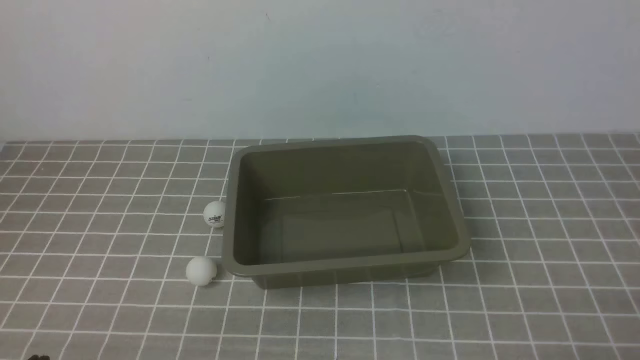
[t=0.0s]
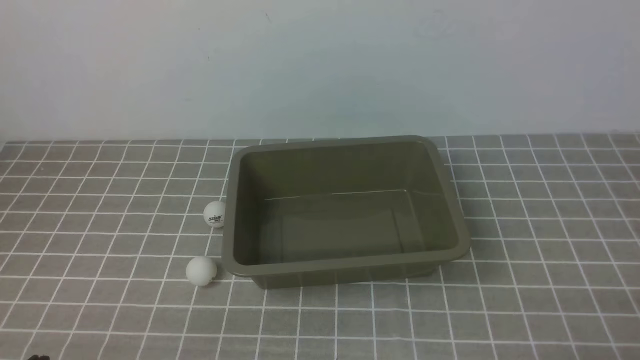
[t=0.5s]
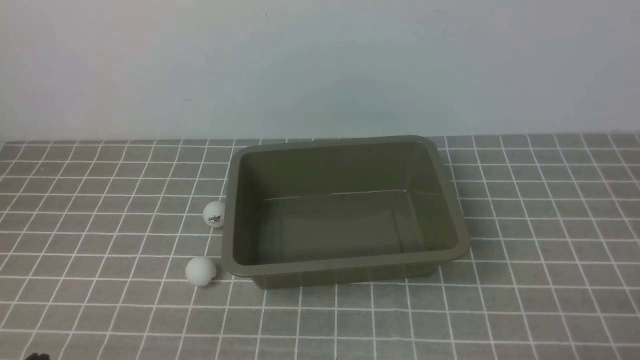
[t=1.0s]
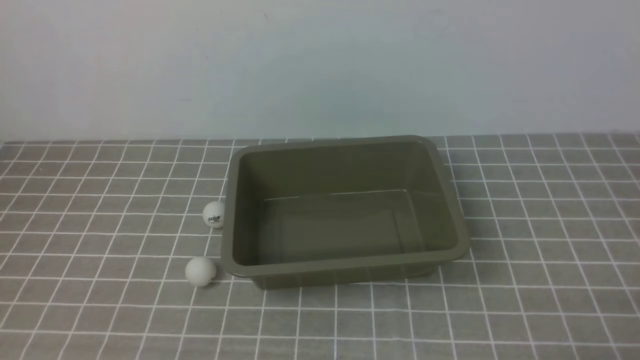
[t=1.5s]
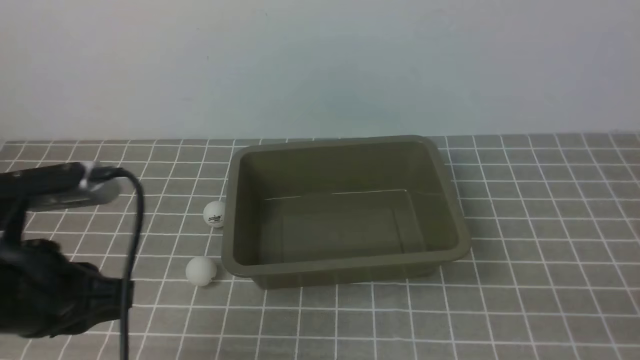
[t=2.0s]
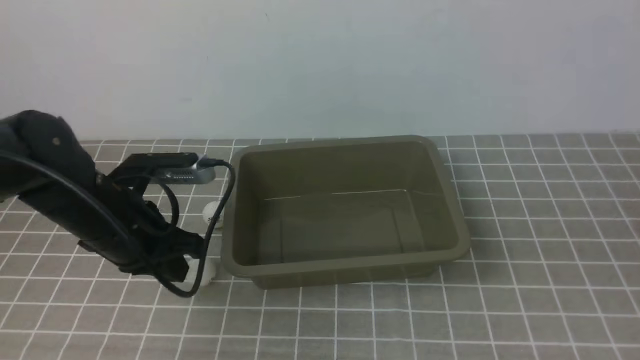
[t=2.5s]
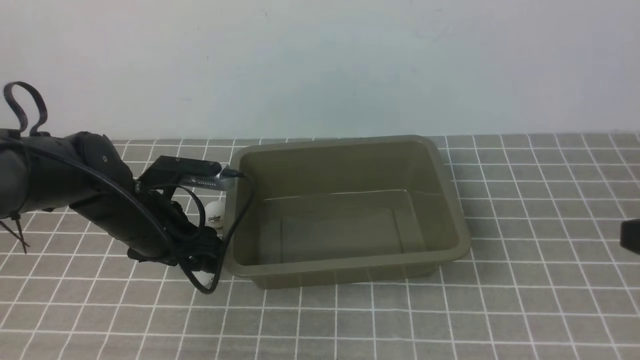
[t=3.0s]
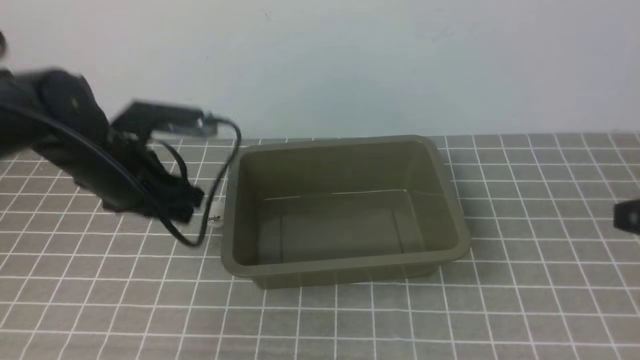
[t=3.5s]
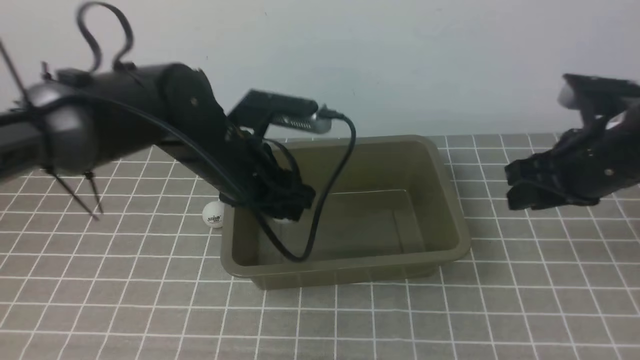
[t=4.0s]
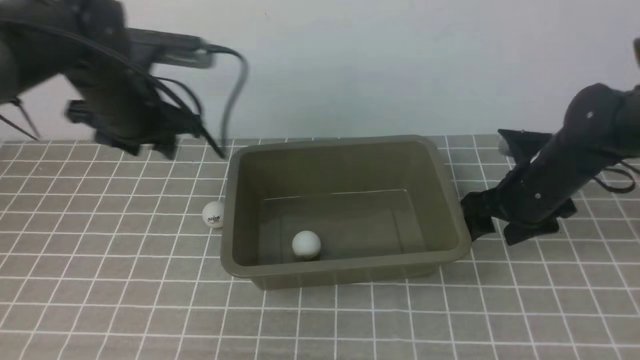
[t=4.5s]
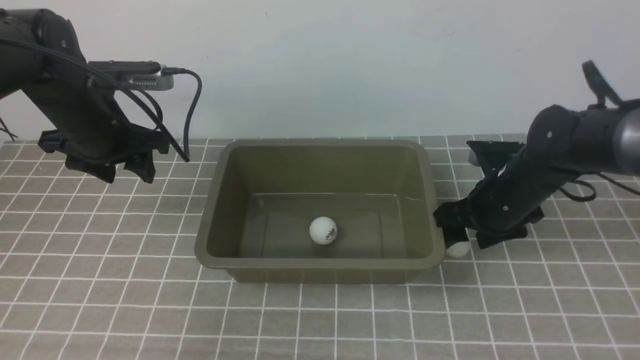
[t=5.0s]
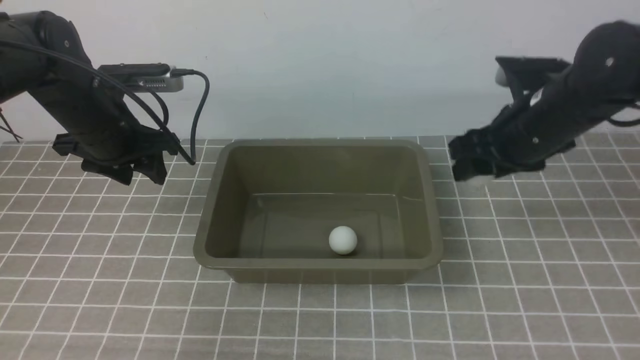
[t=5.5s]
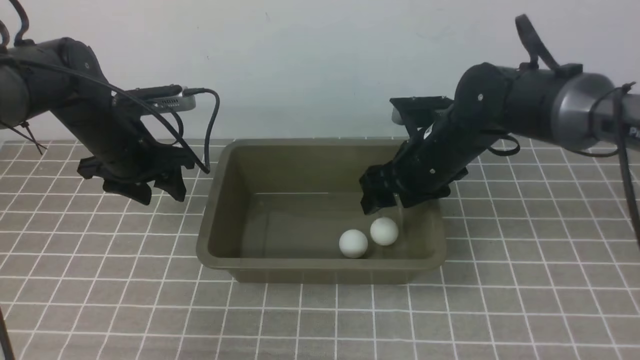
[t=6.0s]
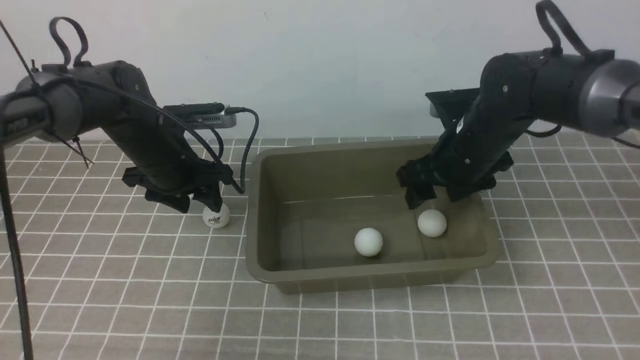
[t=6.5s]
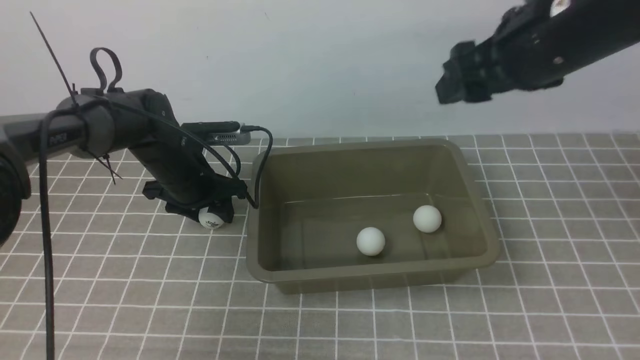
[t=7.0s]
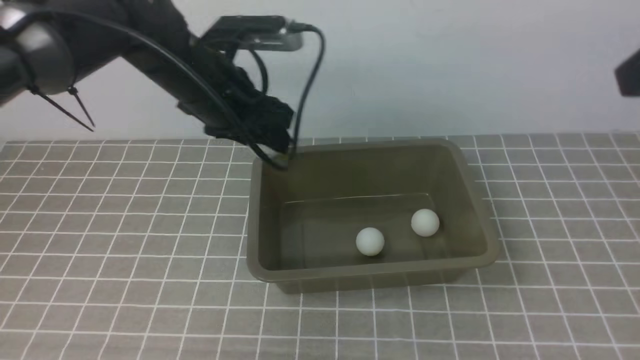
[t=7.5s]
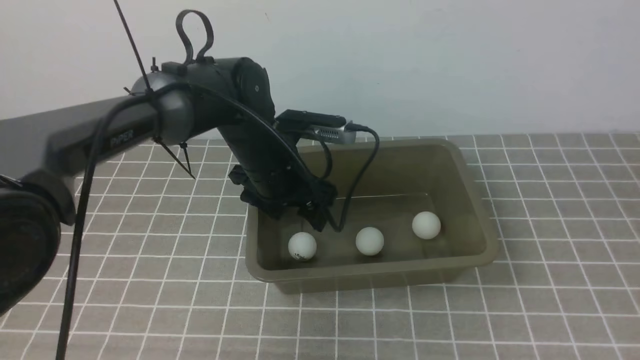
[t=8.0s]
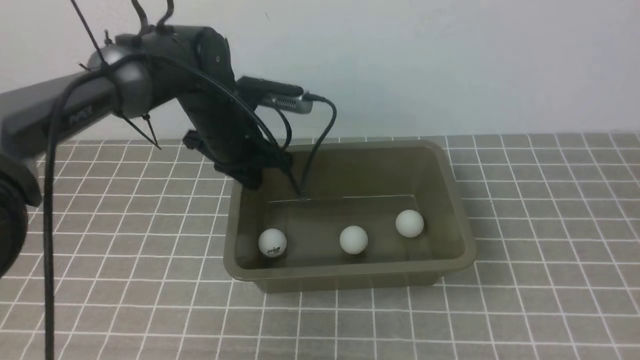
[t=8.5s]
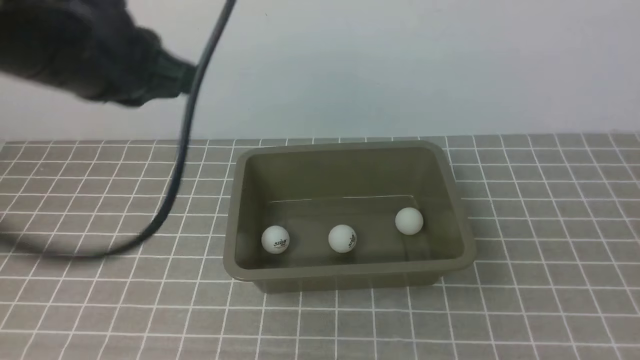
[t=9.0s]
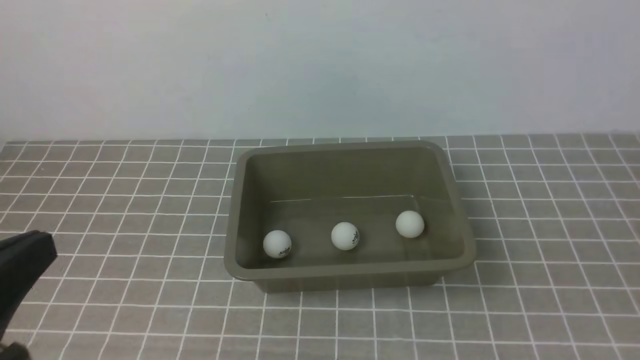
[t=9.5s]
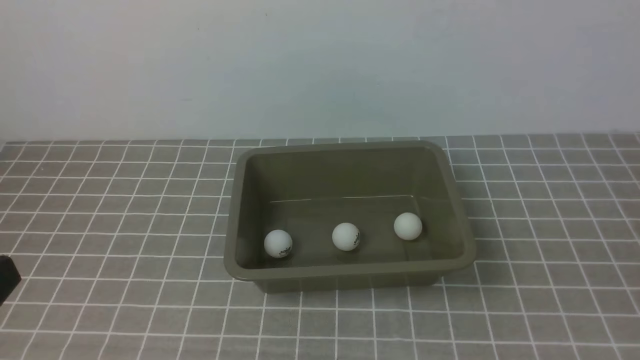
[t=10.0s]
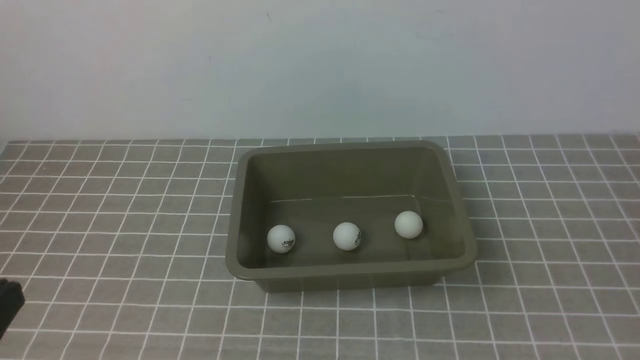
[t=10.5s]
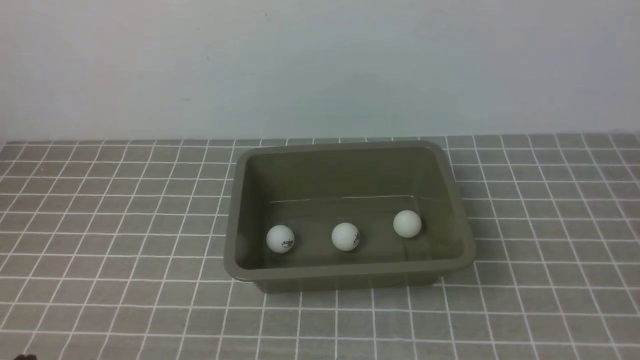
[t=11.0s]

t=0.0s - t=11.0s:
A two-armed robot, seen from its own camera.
Step, t=0.0s - t=3.5s: use the left arm to clamp the table tennis ball closest to it.
Step, t=4.5s - t=5.0s: use the right arm to clamp the table tennis ball closest to it.
Step, t=5.5s - t=6.0s: use the right arm to put the table tennis ball into the box.
Step, t=6.5s - t=7.0s: use the left arm to clamp the table tennis ball closest to it.
Step, t=7.5s - t=8.0s: use the left arm to put the table tennis ball into the box.
t=0.0s - t=2.0s: The left gripper travels forward and upward by approximately 15 cm.
t=2.0s - t=3.5s: The left gripper heads forward, covering roughly 15 cm, and opens up; the right gripper goes roughly 15 cm forward and upward.
t=3.5s - t=5.5s: The right gripper is displaced forward, downward and to the left by approximately 20 cm, and opens up. The left gripper is displaced forward and to the left by roughly 10 cm.
t=5.5s - t=7.5s: The right gripper travels upward and backward by about 25 cm, while the left gripper shifts some 15 cm to the right.
t=7.5s - t=9.0s: The right gripper goes some 20 cm backward and downward, and closes, while the left gripper travels backward and upward by approximately 20 cm, and closes its fingers.
t=9.0s - t=11.0s: The left gripper travels downward and backward by about 30 cm.

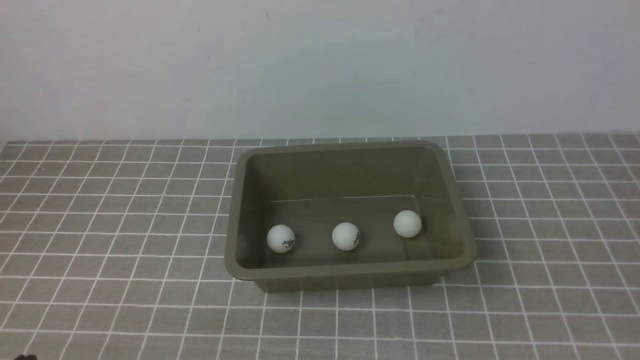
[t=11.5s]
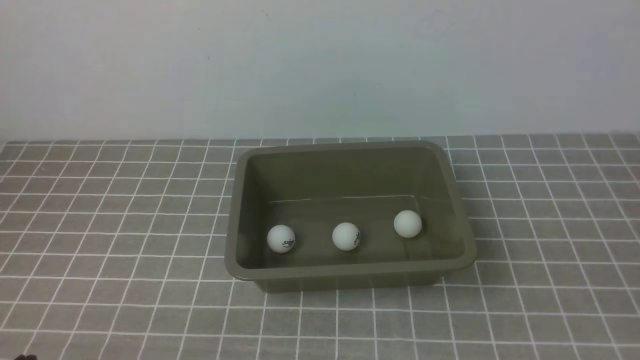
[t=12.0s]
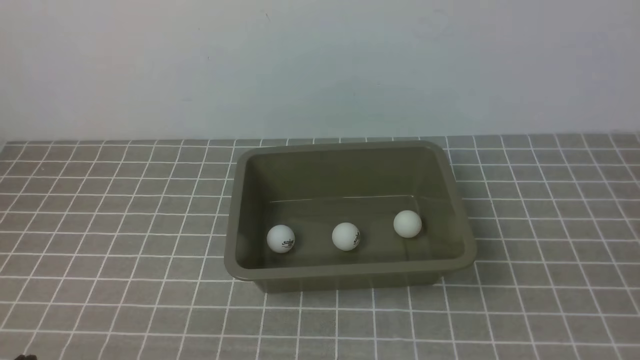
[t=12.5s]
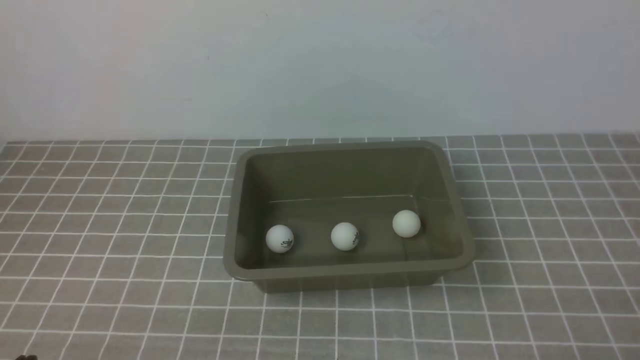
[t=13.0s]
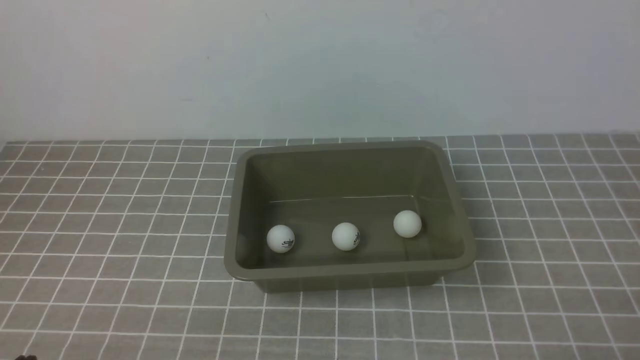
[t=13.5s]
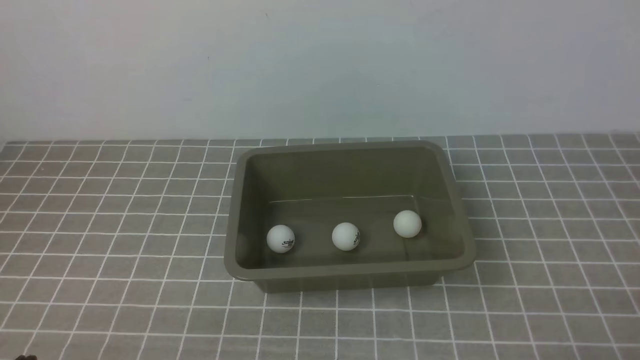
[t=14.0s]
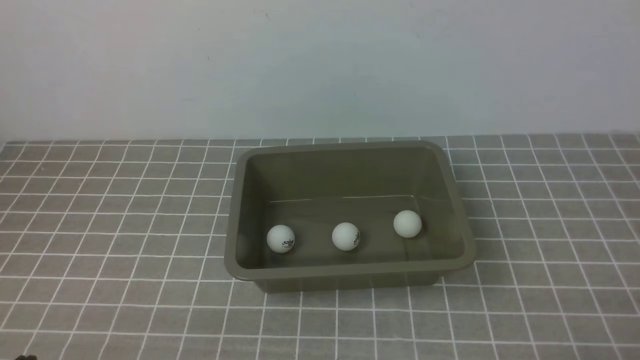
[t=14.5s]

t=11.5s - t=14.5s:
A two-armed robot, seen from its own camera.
t=13.0s - t=14.5s: Both grippers stay put.
